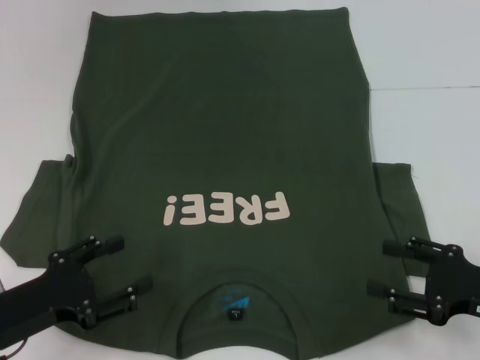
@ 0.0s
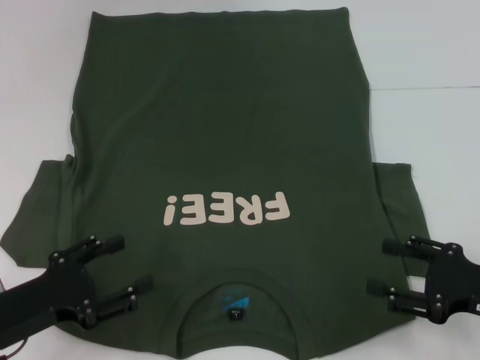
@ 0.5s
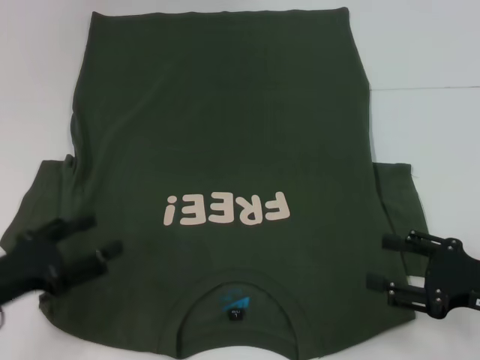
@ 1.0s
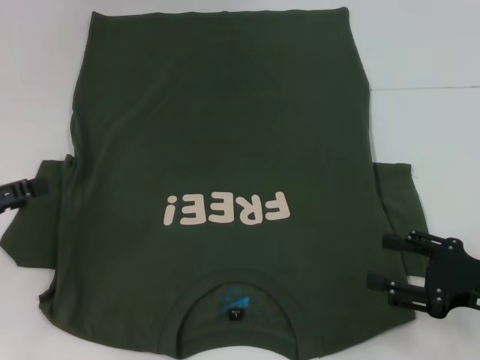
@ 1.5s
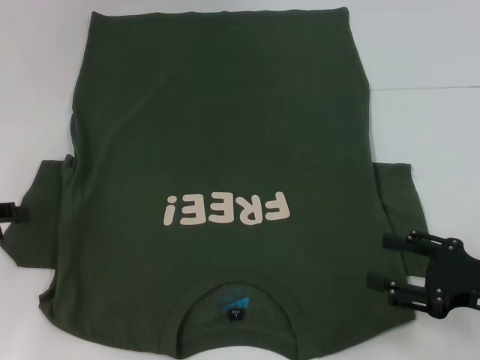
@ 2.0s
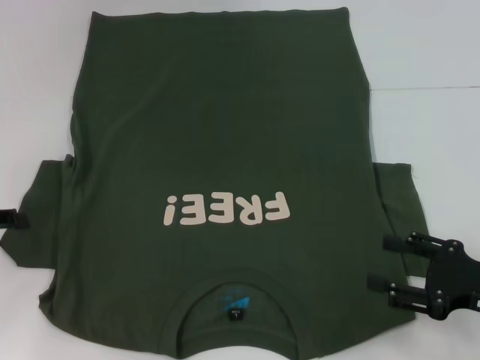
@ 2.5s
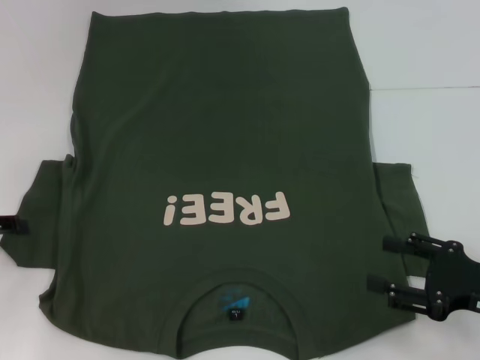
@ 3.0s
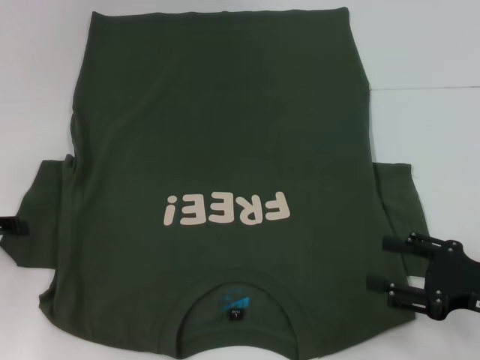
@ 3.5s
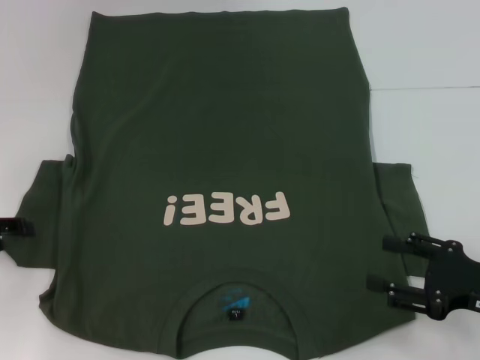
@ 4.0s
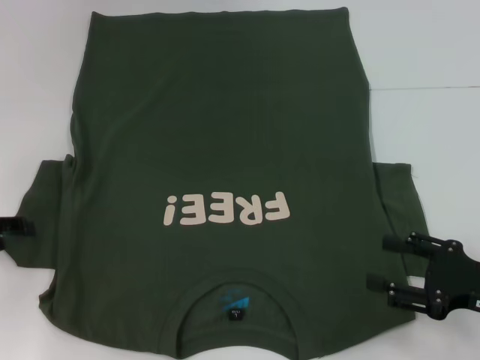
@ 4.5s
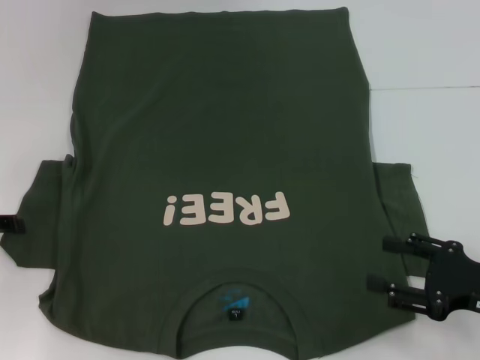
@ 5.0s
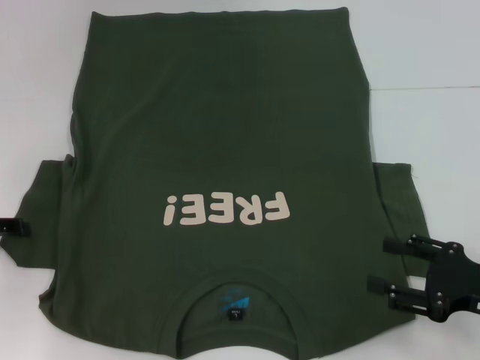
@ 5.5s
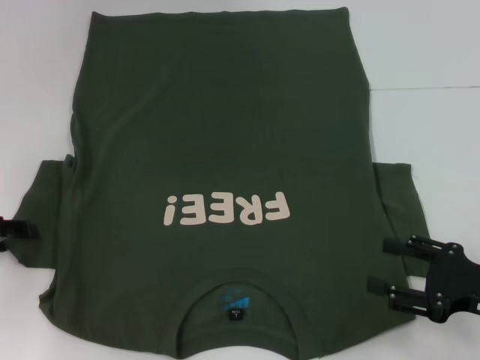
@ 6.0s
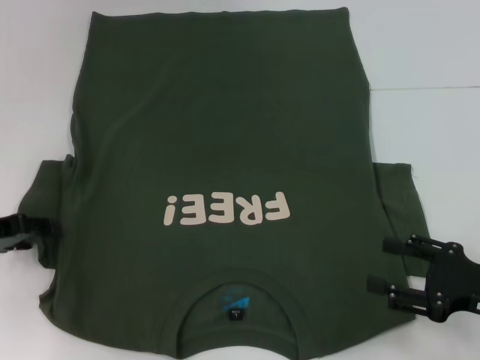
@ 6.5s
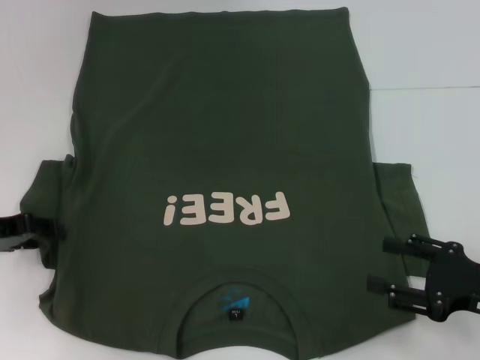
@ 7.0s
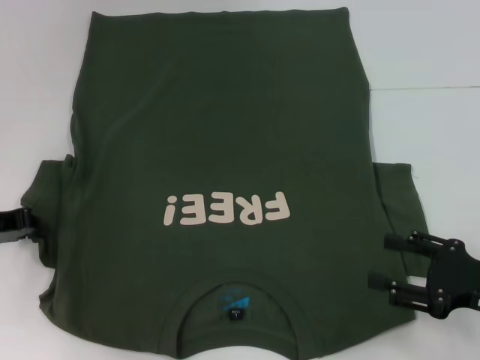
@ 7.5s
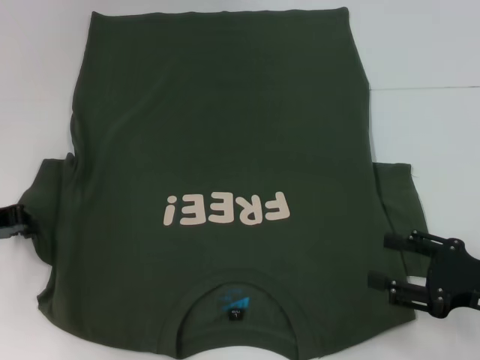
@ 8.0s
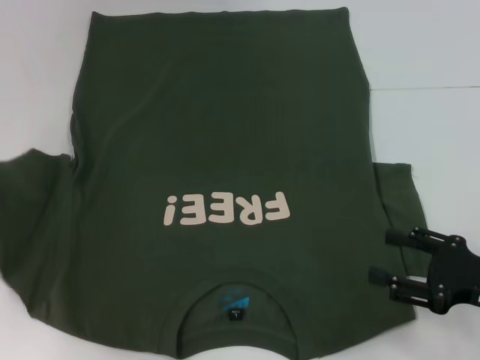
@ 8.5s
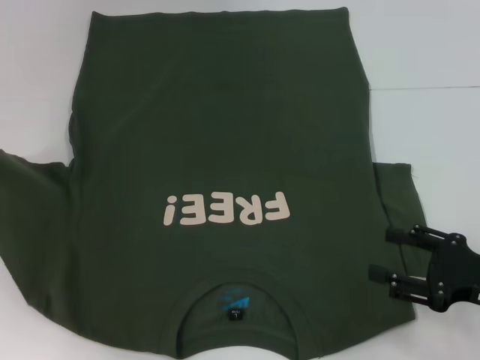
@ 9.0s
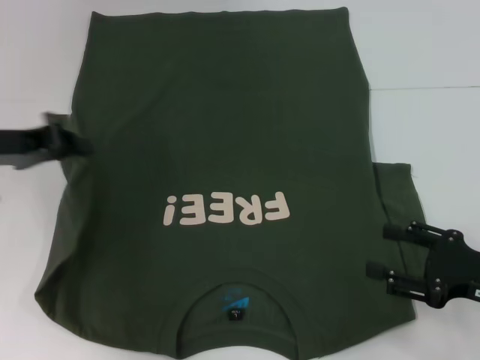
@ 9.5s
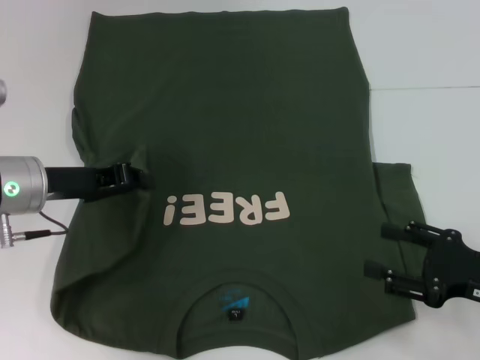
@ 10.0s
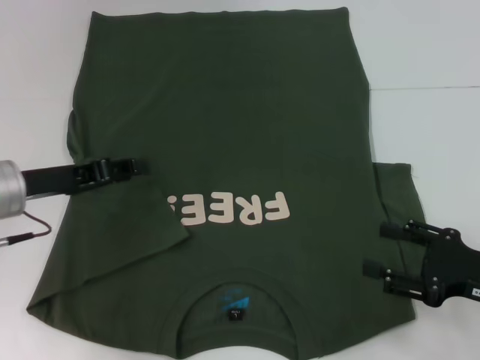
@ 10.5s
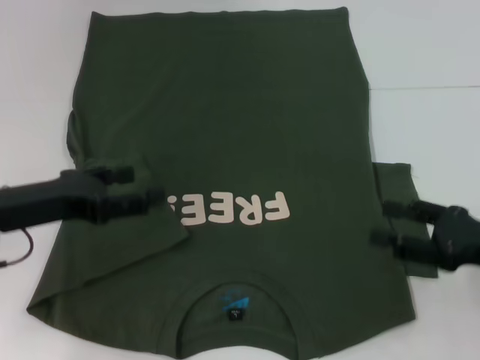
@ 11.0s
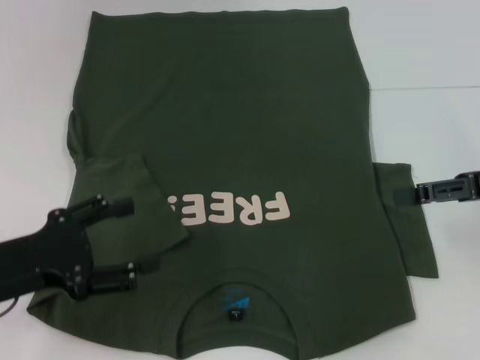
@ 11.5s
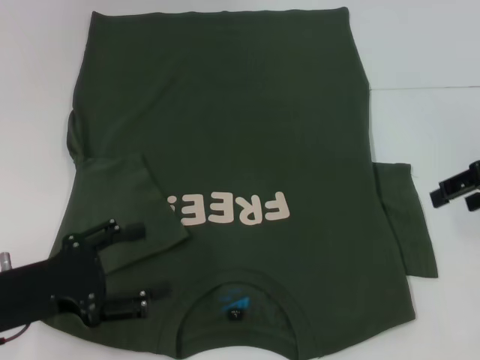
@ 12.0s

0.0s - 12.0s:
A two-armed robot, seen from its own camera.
Step, 0.0s - 10.0s: Fold the bottom left sleeve with your left hand.
0.0s - 2.0s: The left gripper travels to the left, upward and forward by some 15 cm.
2.0s - 4.0s: The grippers make only small movements.
4.0s - 6.0s: The two grippers keep their place.
6.0s - 8.0s: The left gripper closes its fingers.
8.0s - 10.0s: The left gripper is displaced to the right by about 10 cm.
10.0s - 12.0s: The left gripper shifts some 10 cm backward, and opens; the right gripper travels upward and forward by some 20 cm.

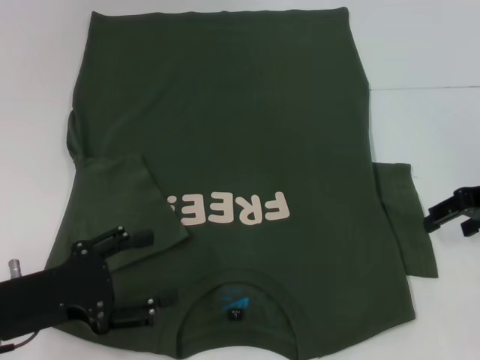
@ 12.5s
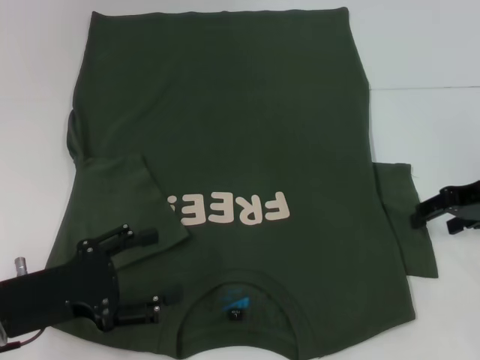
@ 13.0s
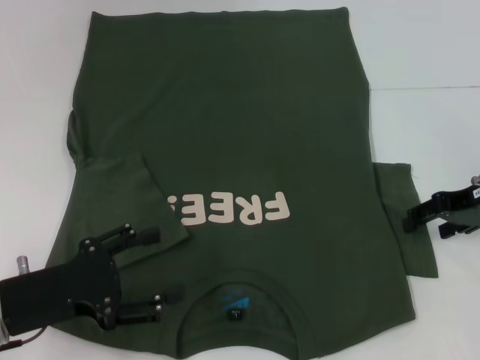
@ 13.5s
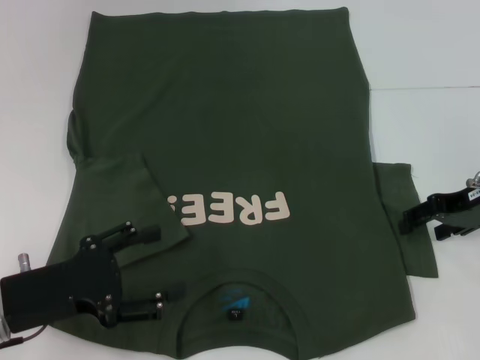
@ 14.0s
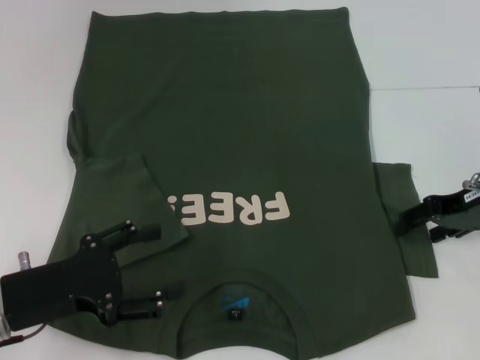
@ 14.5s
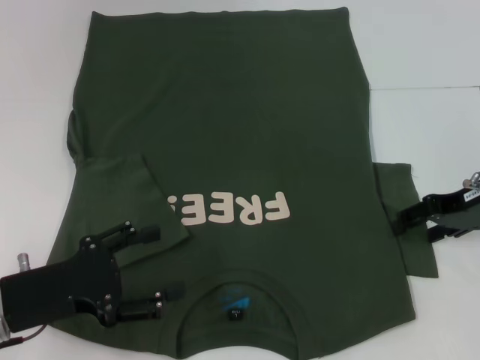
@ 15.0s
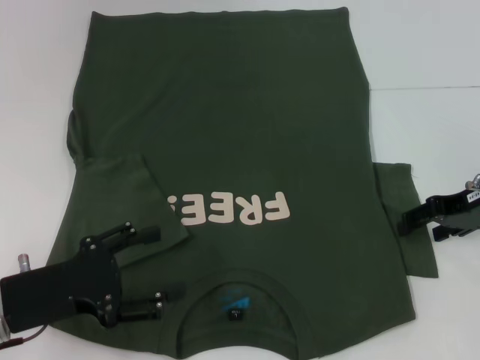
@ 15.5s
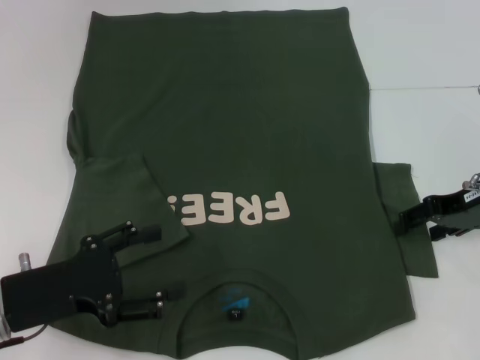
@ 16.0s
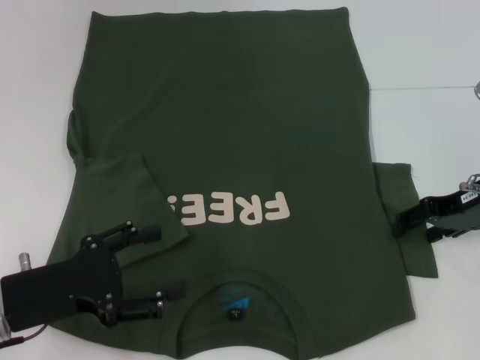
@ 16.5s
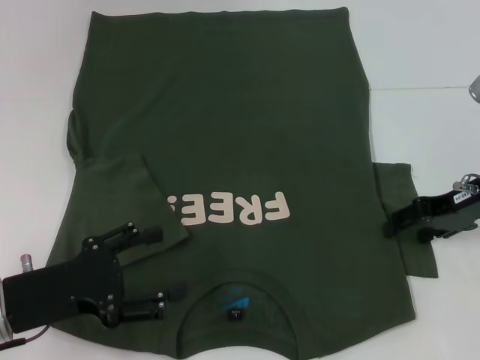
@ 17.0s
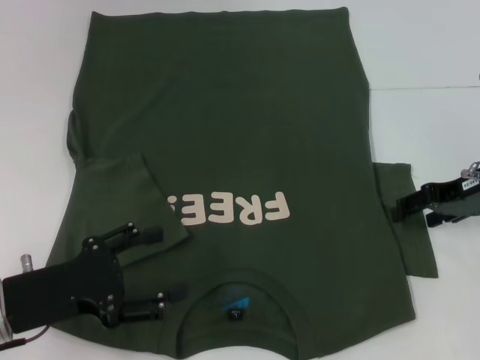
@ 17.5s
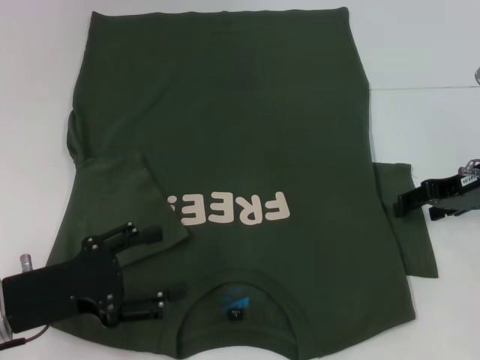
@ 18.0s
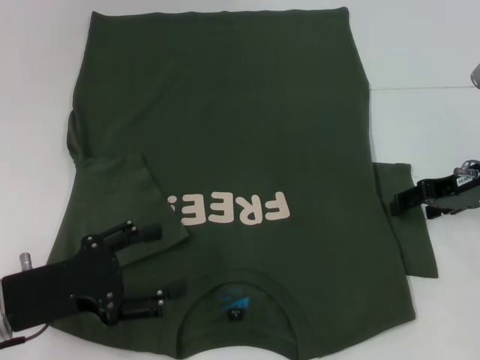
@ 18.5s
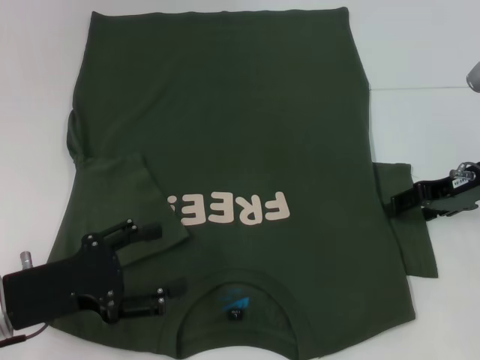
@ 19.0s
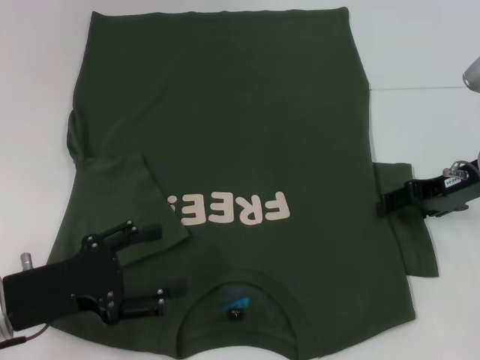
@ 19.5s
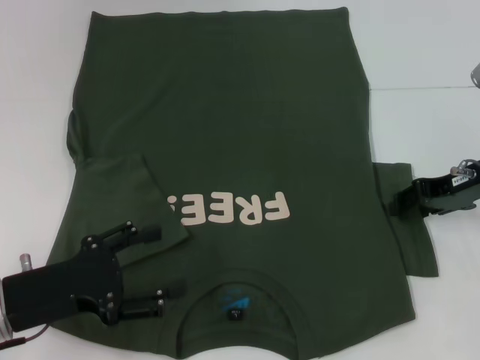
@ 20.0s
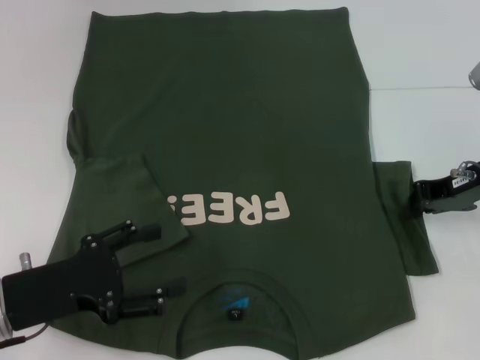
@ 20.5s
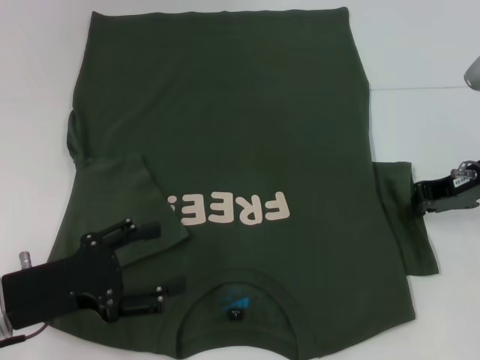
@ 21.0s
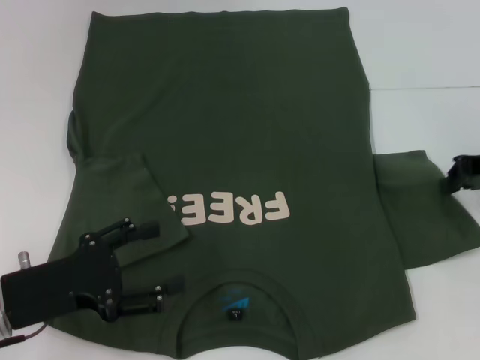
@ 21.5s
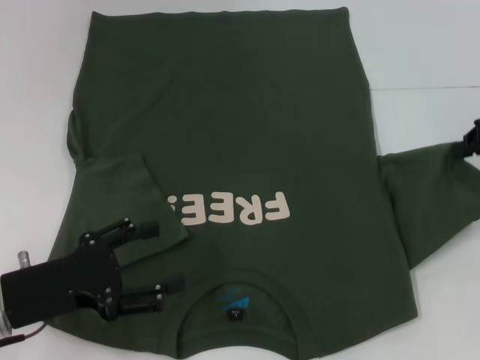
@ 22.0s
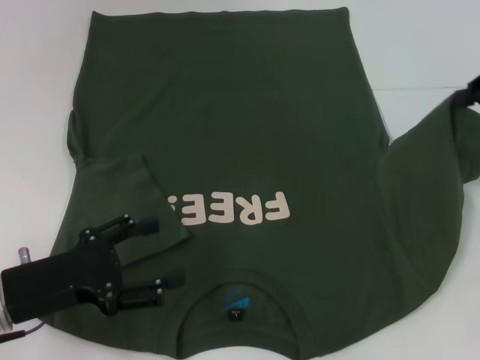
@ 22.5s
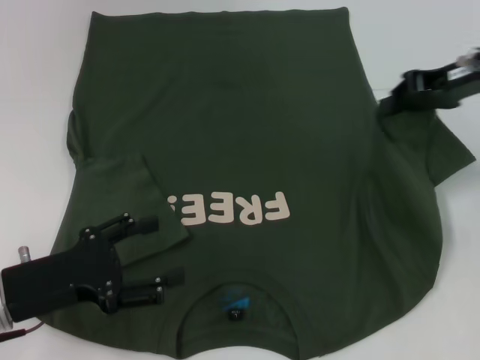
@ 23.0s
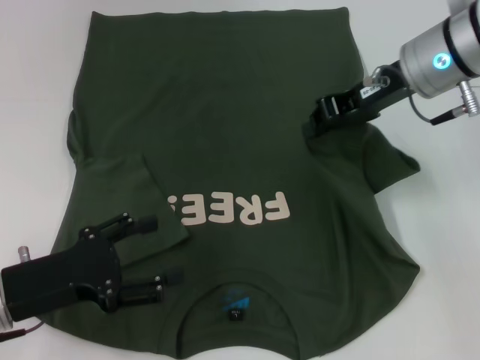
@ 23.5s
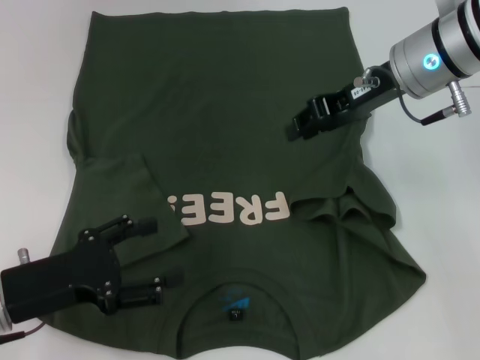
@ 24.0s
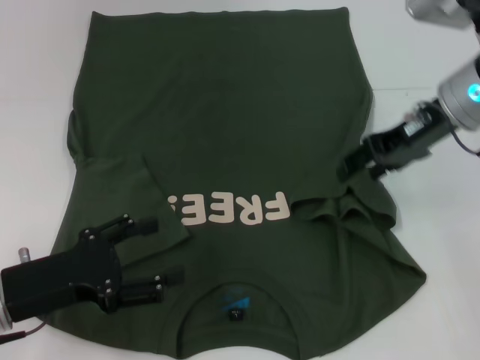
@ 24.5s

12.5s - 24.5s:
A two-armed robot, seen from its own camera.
12.5s - 14.5s: The grippers stay close to where they were, moving slightly.
14.5s - 16.5s: Both grippers stay put.
16.5s - 18.5s: The grippers move only a little.
18.5s - 20.5s: The right gripper closes its fingers.
20.5s - 22.5s: The right gripper moves upward and to the right, about 10 cm.
22.5s - 24.5s: The right gripper shifts some 10 cm to the left, and opens.

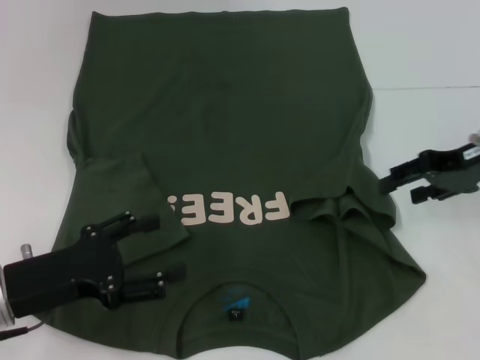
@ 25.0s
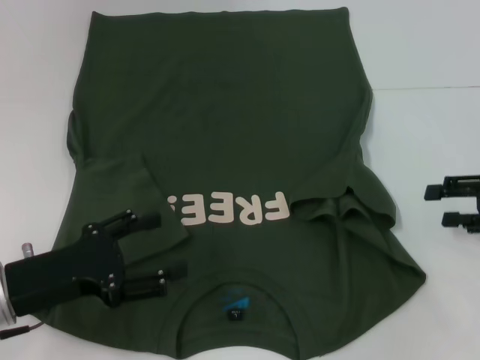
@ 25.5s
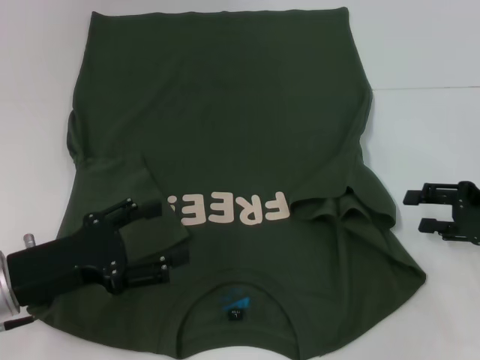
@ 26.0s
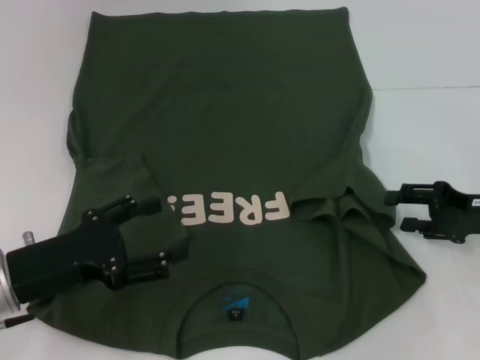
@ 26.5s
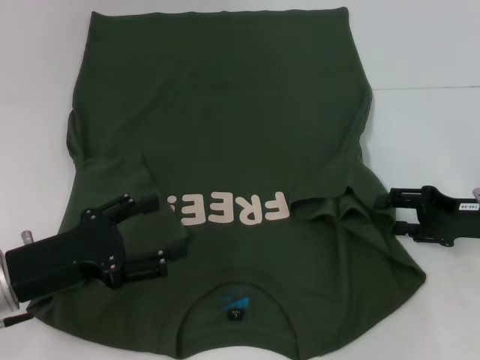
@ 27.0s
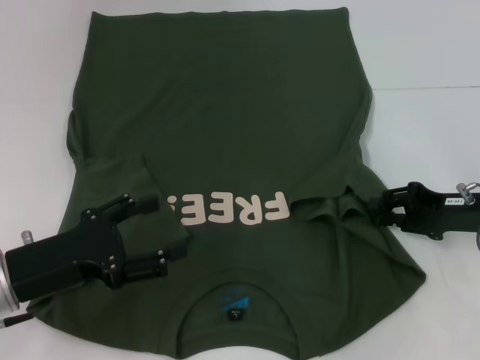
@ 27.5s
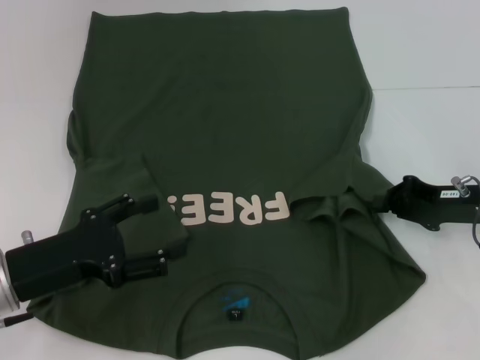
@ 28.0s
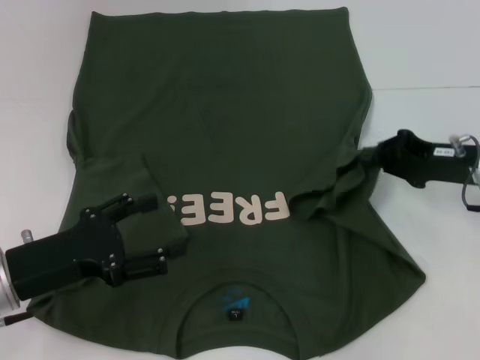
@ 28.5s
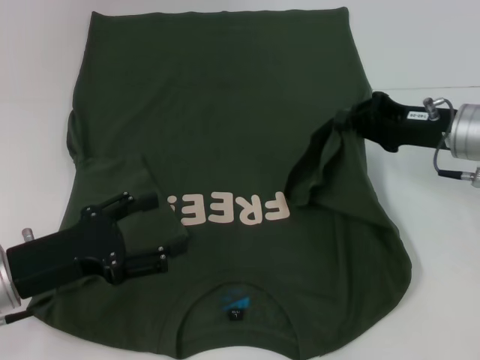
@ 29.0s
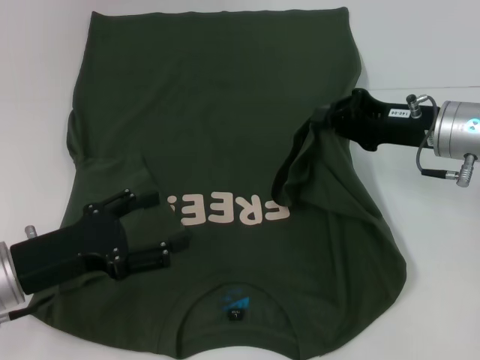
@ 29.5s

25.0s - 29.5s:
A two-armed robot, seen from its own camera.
25.0s - 27.0s: The right gripper heads downward and backward, covering about 10 cm.
27.0s - 29.5s: The right gripper moves to the left, forward and upward, some 10 cm, and closes.
